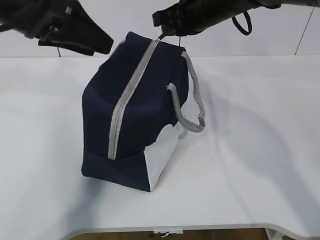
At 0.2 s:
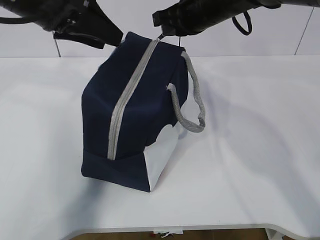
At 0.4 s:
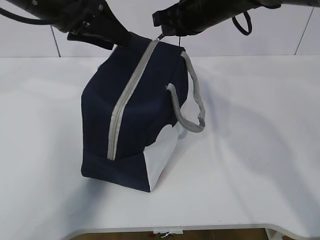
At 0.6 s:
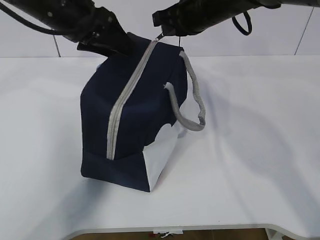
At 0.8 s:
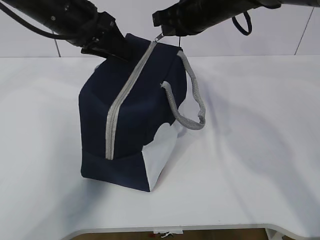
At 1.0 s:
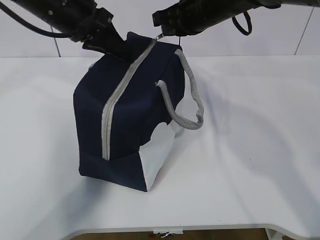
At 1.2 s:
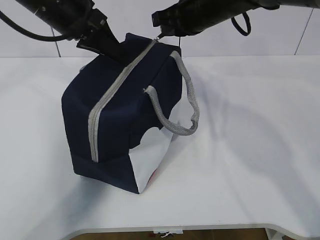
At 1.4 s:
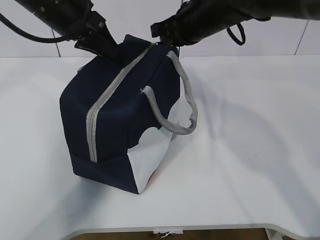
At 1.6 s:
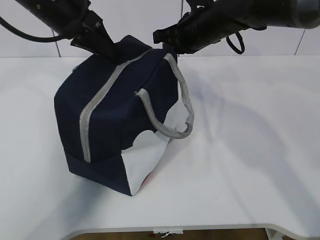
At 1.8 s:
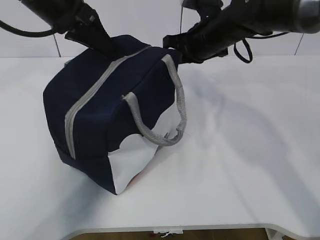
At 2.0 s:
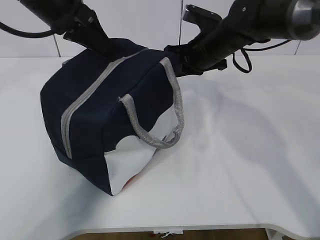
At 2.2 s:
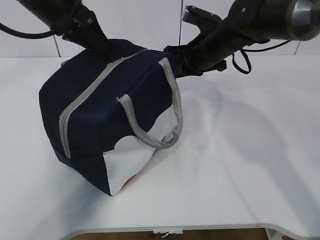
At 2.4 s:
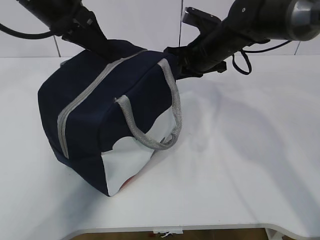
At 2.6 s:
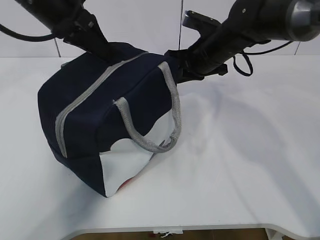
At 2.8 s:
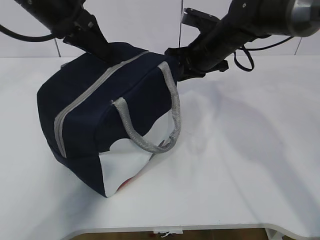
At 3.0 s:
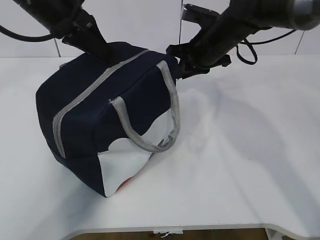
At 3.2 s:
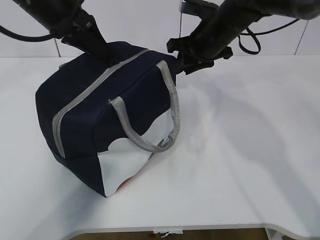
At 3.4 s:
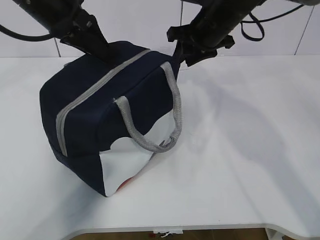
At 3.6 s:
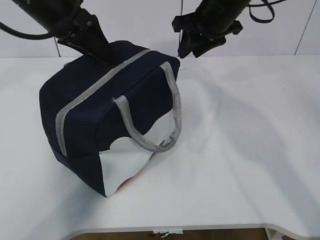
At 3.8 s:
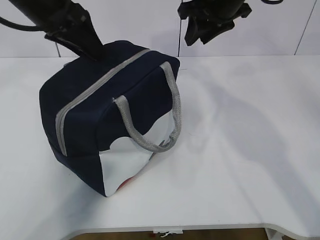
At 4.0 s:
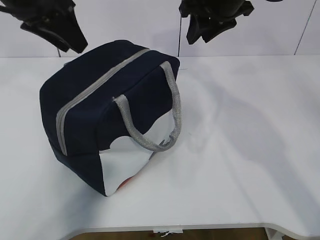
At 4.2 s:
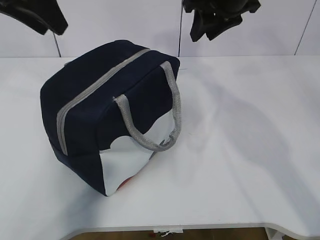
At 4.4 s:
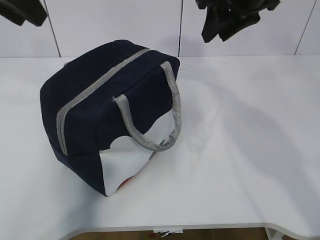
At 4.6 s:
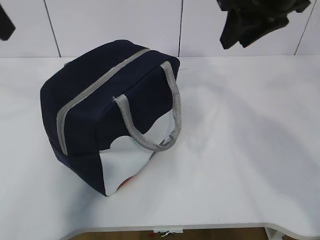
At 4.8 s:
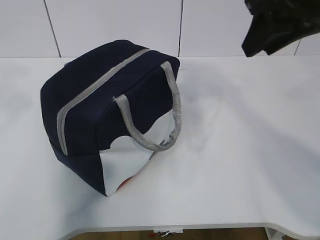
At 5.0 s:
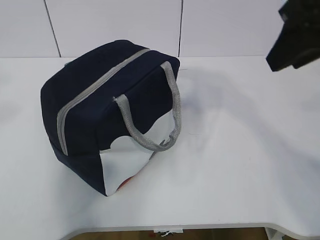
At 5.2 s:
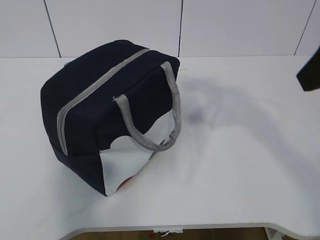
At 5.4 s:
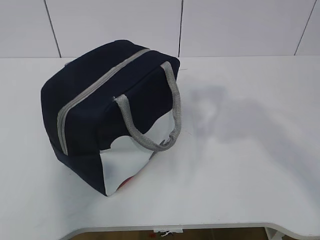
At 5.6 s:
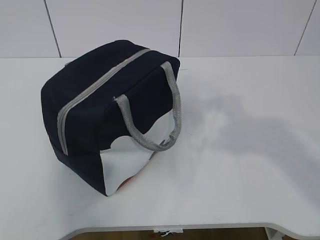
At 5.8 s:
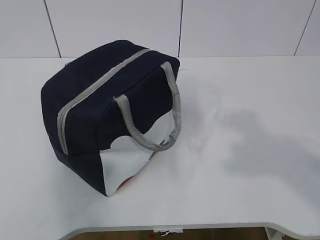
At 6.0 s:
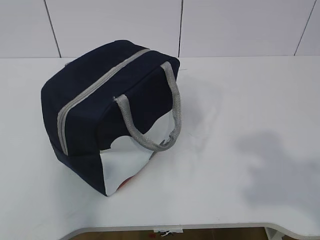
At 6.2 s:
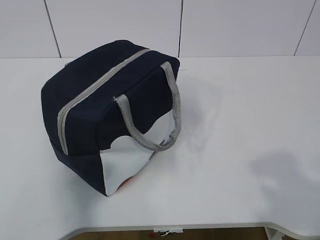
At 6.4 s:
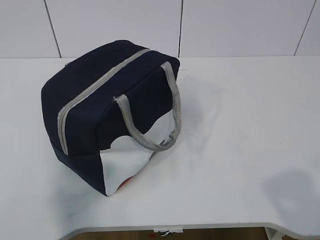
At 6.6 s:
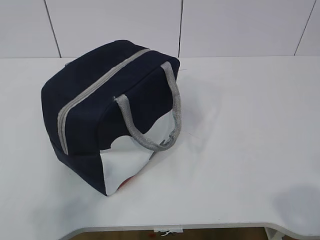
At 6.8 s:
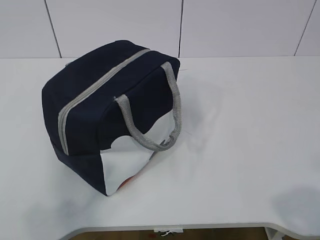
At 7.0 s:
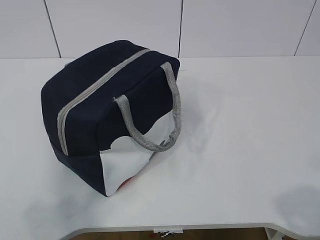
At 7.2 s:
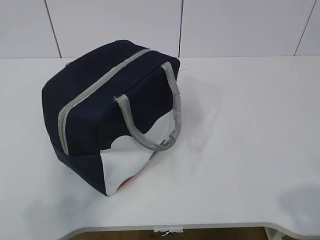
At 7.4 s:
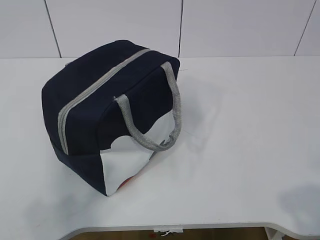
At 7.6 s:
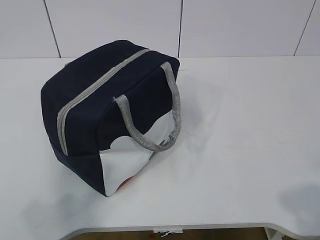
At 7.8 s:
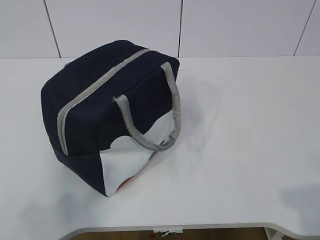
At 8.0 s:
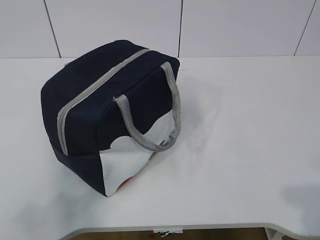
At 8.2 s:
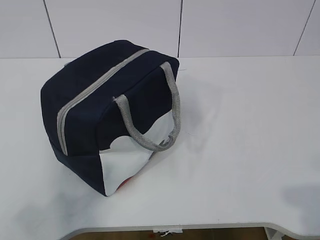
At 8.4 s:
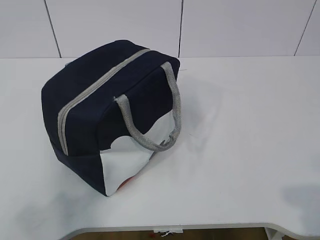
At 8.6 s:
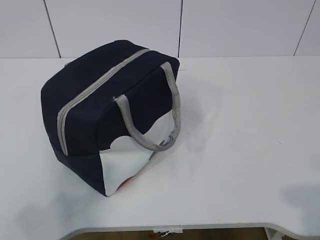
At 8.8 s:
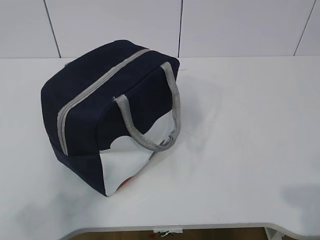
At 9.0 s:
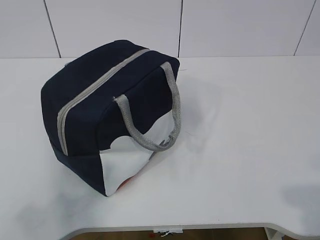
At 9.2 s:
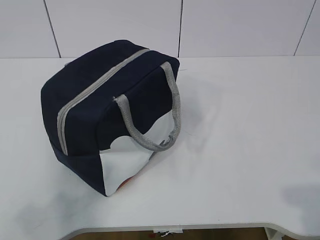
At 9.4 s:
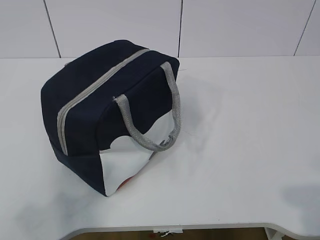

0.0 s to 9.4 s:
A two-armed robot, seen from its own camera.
0.0 to 1.6 s: The left gripper moves forward, approximately 10 cm, and closes up.
1.6 to 3.2 s: The right gripper opens up.
3.2 to 4.8 s: The left gripper goes roughly 20 cm backward, upward and to the left, and opens, while the right gripper moves backward and upward, approximately 20 cm.
4.8 to 6.2 s: The right gripper heads backward, covering about 30 cm.
